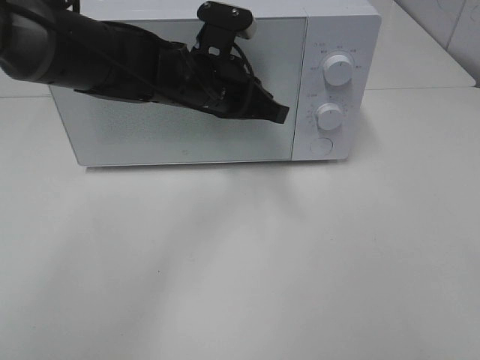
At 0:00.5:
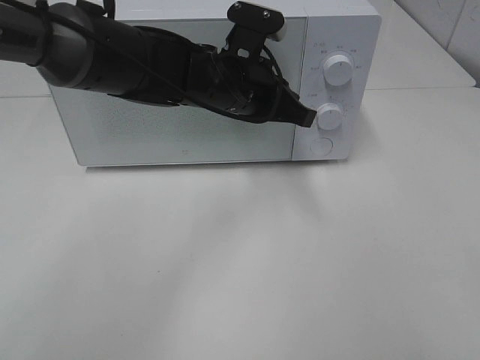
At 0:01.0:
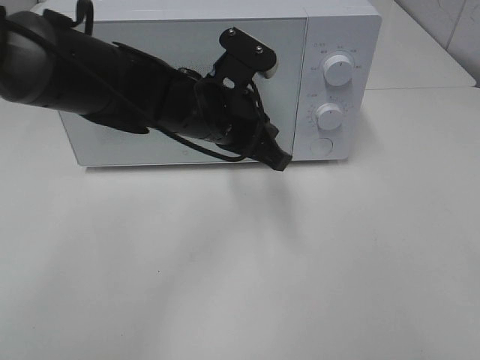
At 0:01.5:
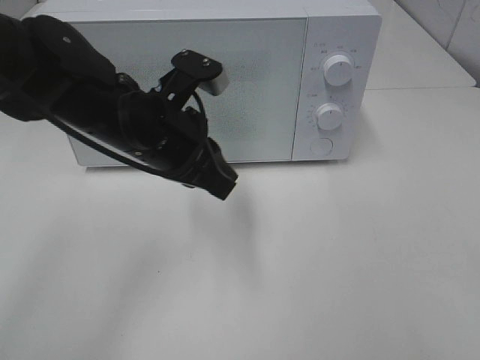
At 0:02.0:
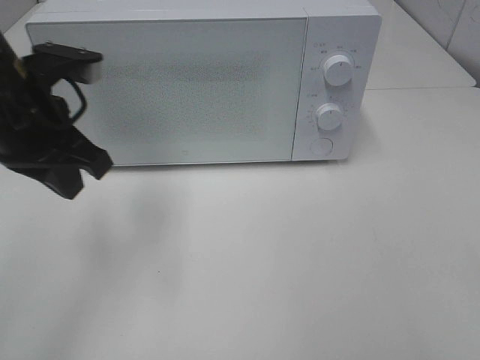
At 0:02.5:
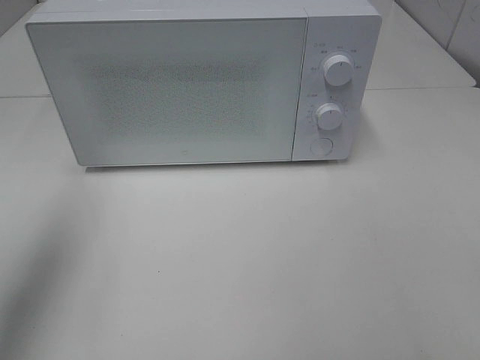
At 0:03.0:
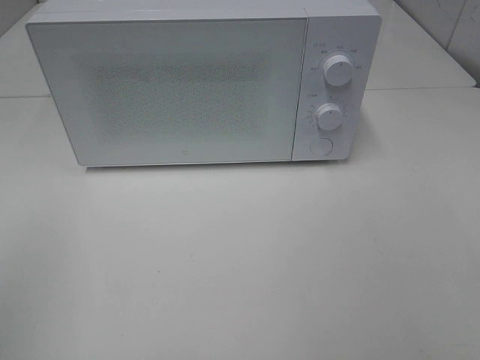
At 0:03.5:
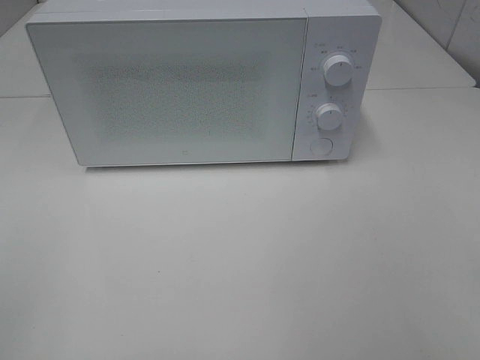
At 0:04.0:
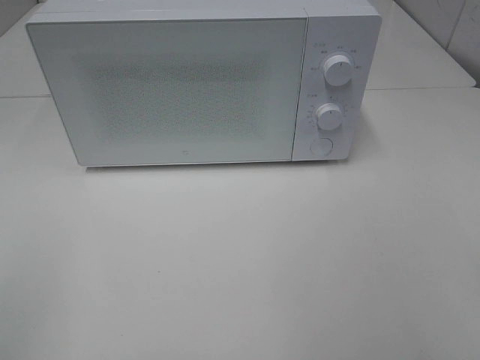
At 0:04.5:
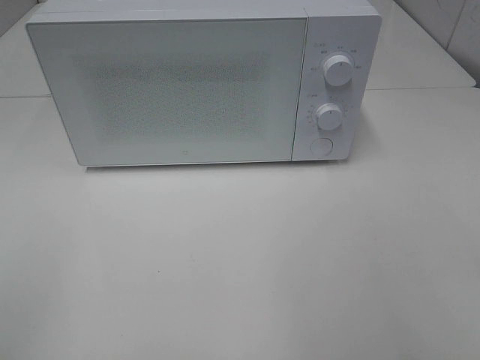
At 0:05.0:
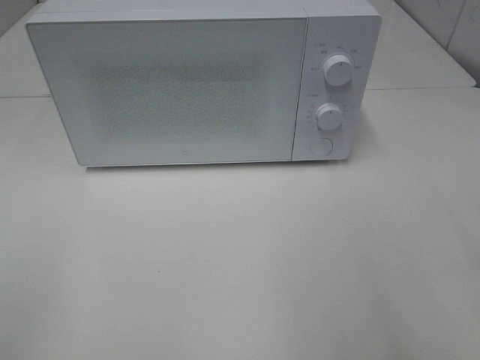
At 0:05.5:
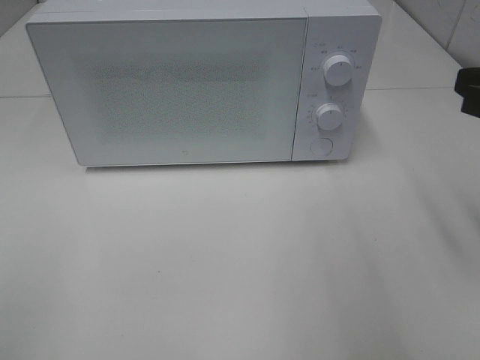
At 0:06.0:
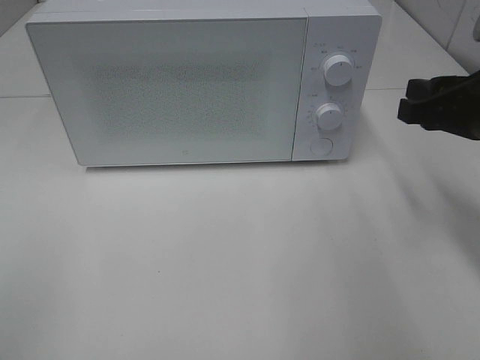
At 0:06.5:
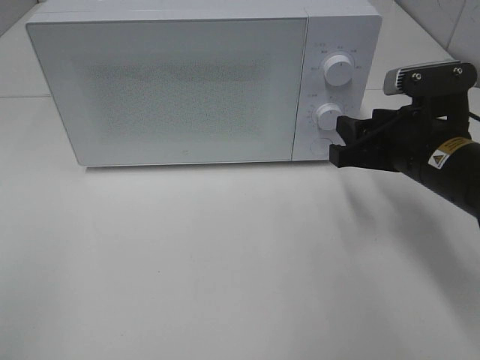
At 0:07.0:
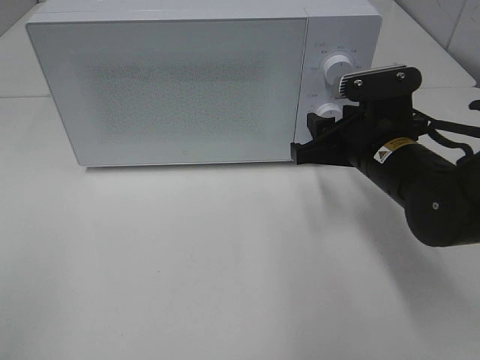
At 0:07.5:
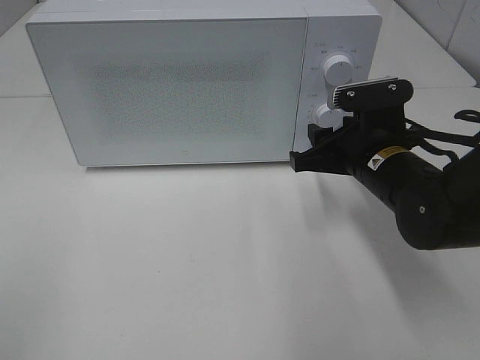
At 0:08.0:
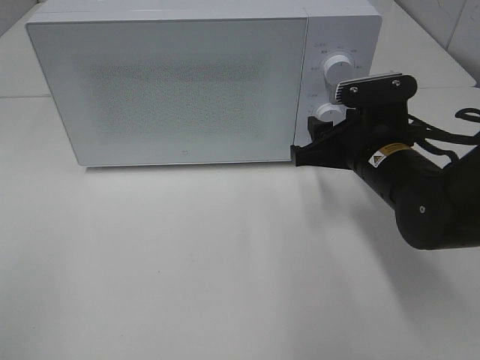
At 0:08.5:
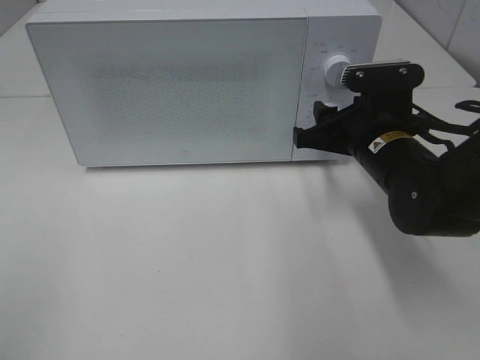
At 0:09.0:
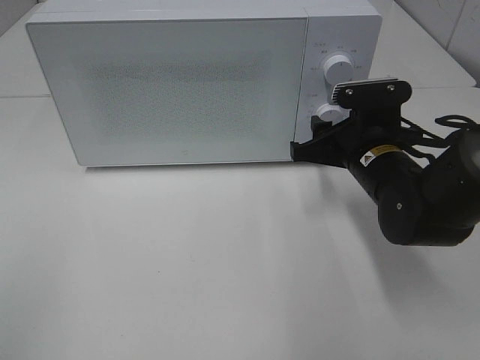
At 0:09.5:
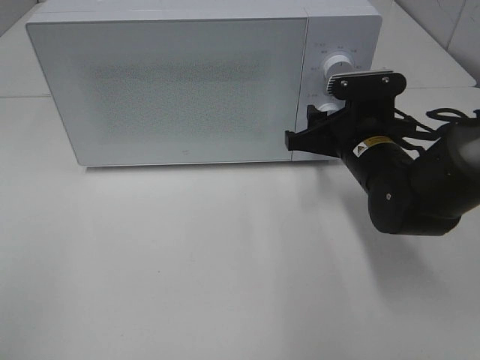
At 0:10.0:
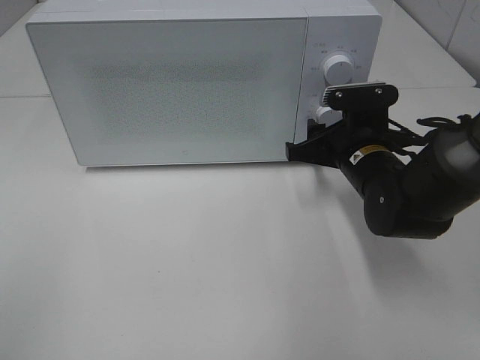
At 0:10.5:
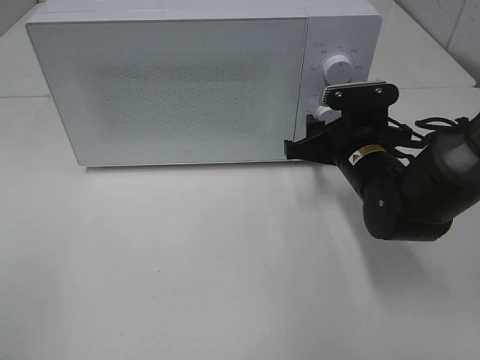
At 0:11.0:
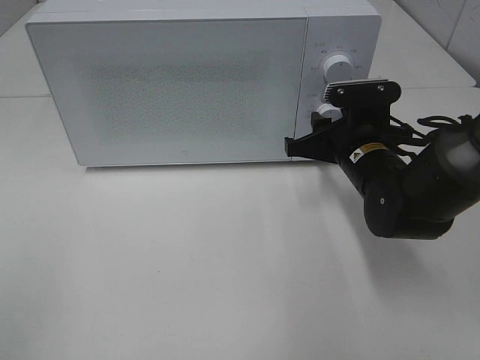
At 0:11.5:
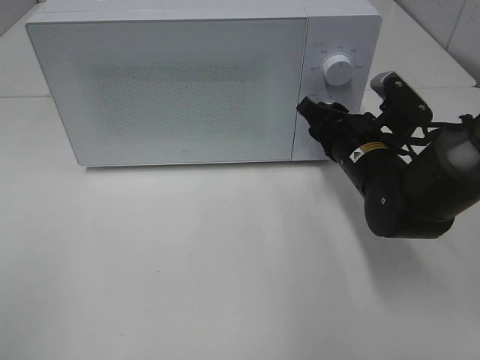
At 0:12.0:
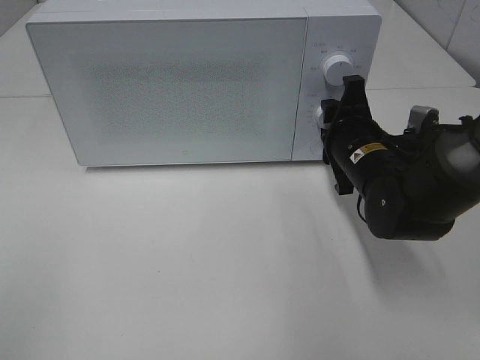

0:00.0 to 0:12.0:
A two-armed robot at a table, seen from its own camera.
Task of the whole recording: Heat the burger.
0:00.0 to 0:02.0: The left gripper is displaced to the left and backward by approximately 20 cm.
0:02.0 to 0:04.0: The left gripper goes about 30 cm backward and to the left.
0:04.0 to 0:06.0: The right gripper heads forward, covering about 25 cm.
0:06.0 to 0:08.0: The right gripper heads to the left and downward, covering approximately 10 cm.
0:08.0 to 0:10.0: The grippers stay close to where they were, moving slightly.

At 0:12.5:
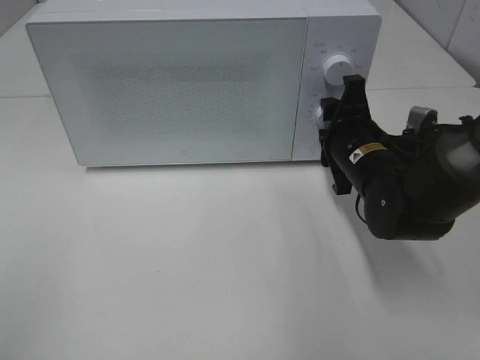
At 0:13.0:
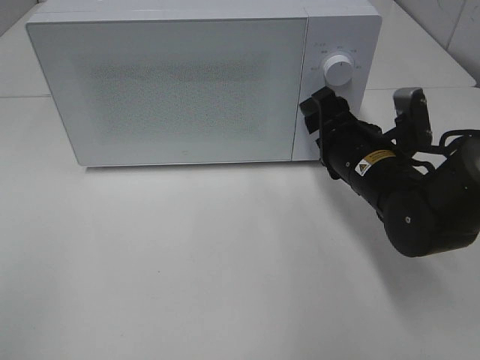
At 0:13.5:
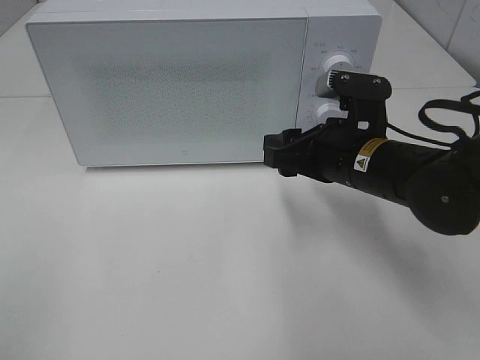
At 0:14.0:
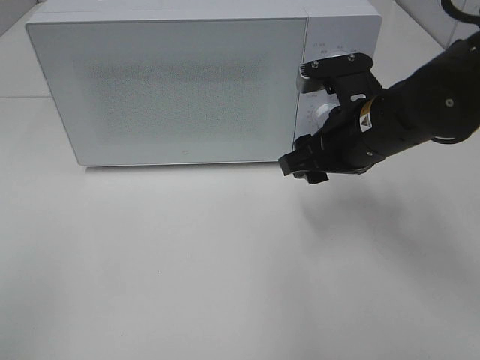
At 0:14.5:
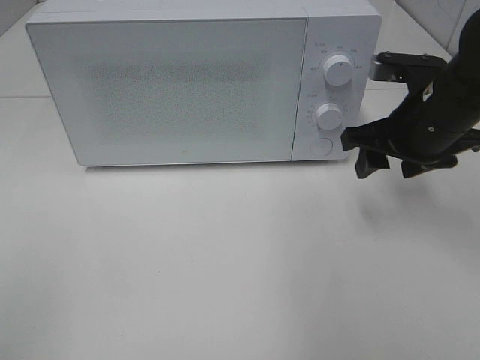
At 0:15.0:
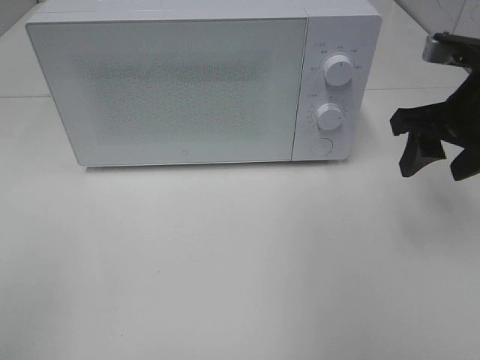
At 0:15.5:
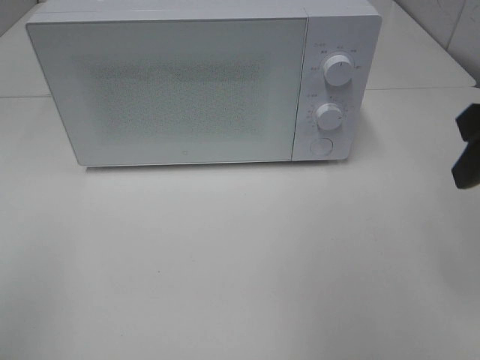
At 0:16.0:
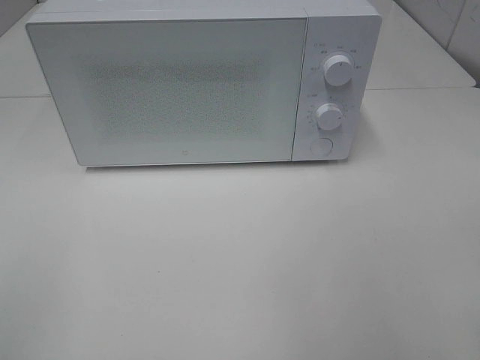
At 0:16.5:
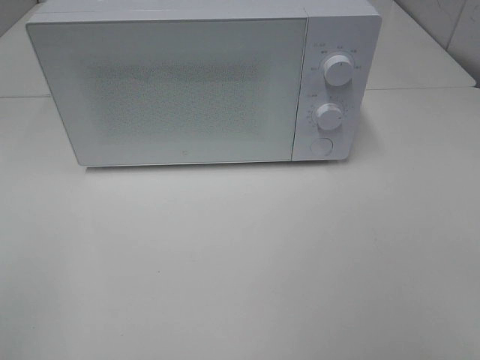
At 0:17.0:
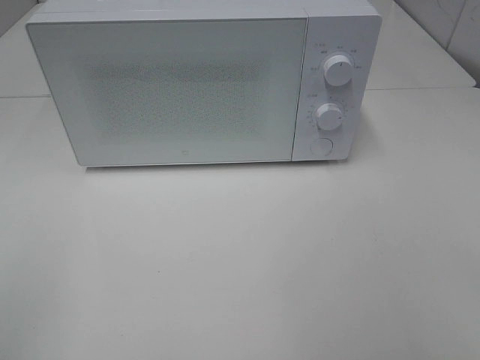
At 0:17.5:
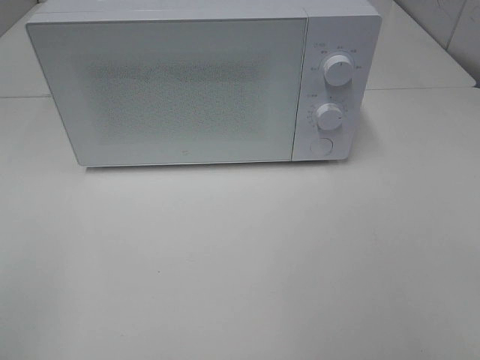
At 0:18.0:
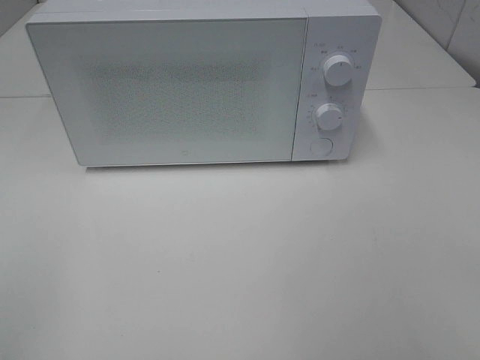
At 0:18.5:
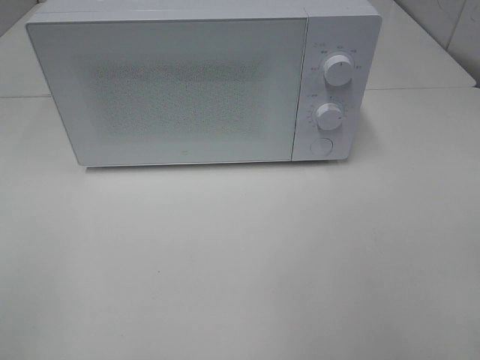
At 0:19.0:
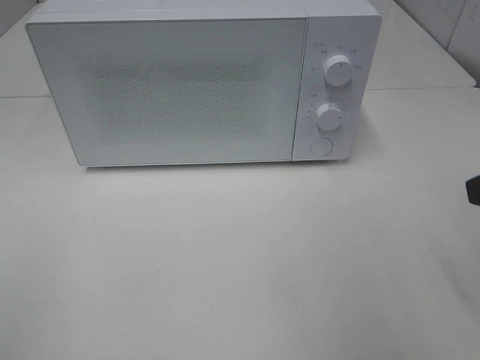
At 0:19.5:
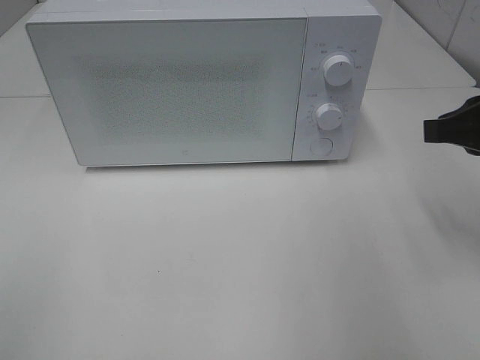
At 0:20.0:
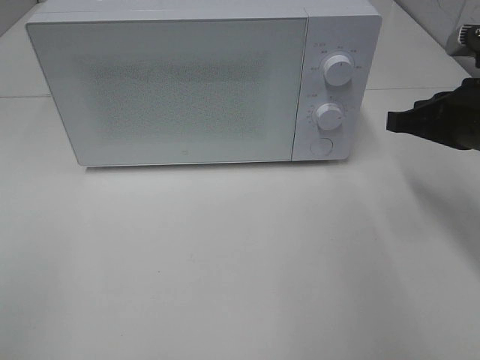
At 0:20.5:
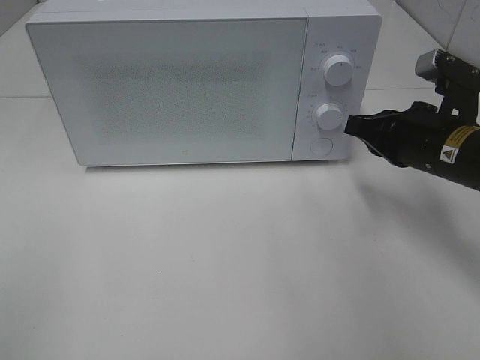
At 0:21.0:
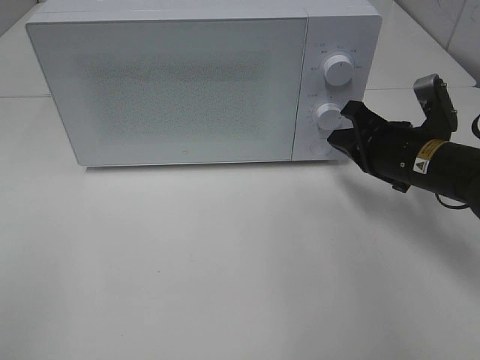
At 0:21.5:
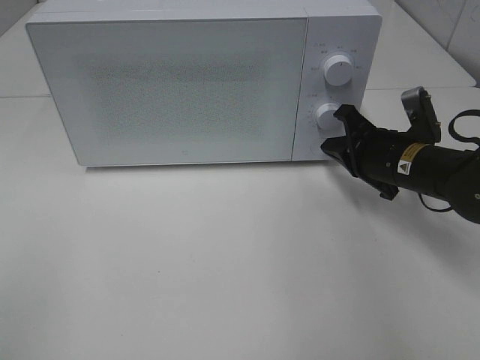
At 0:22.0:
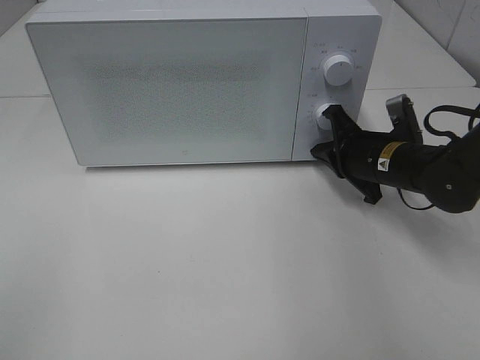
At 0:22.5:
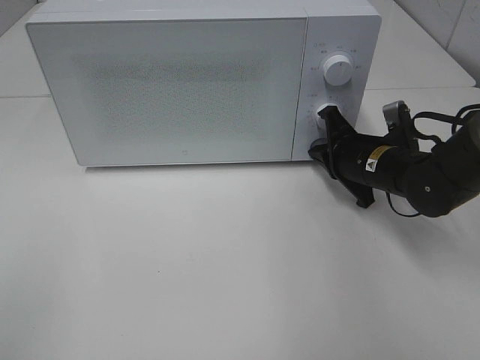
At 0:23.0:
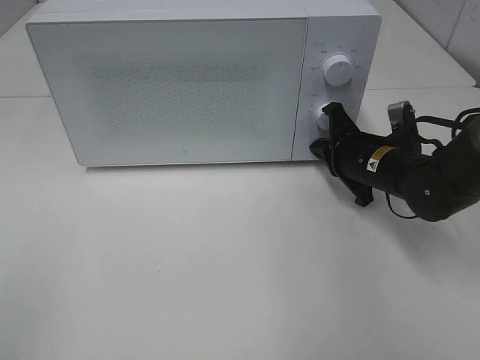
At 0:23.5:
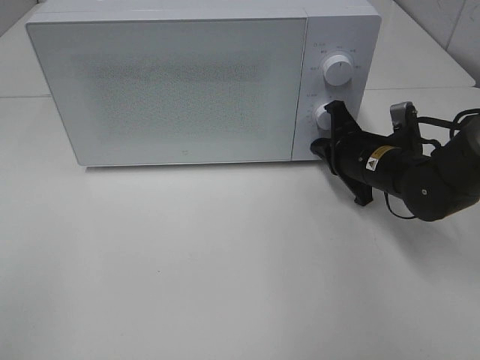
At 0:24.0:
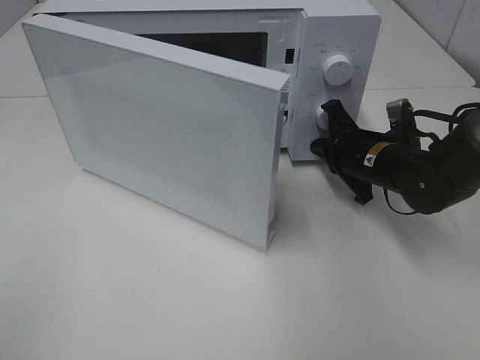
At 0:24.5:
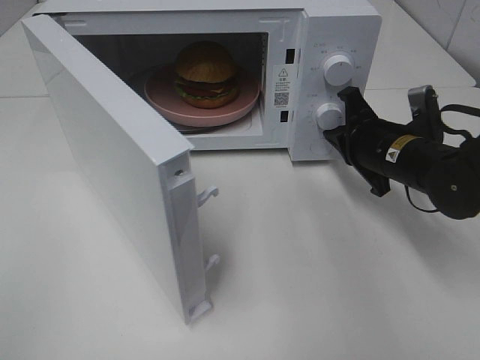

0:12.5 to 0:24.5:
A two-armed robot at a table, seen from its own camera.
Task of the whole recording: Heat the burger.
Step, 0:13.0 to 0:24.0: Right hand: press the switch.
0:12.5 to 0:14.5: The right gripper is displaced upward and to the right by some 10 cm.
0:14.5 to 0:16.5: The right gripper travels backward by some 30 cm.
0:18.5 to 0:20.5: The right gripper travels forward and downward by some 25 cm, and closes up.
0:20.5 to 0:22.5: The right gripper heads downward and forward, covering about 10 cm.

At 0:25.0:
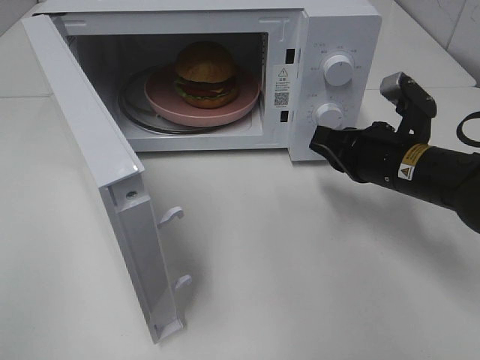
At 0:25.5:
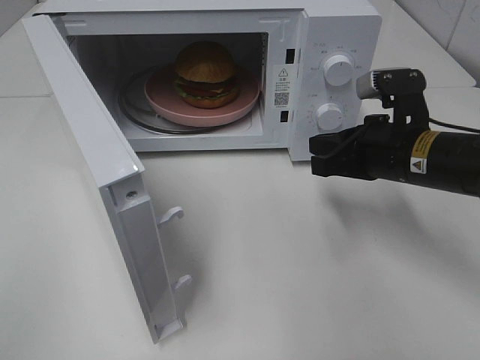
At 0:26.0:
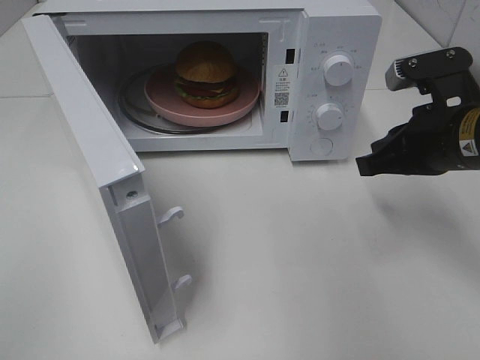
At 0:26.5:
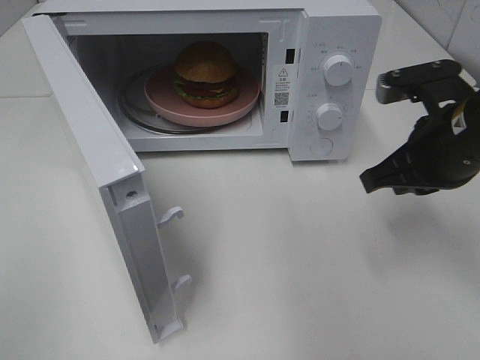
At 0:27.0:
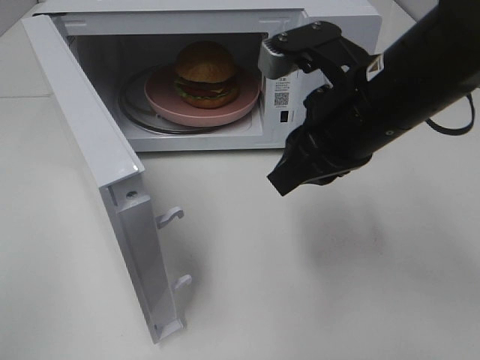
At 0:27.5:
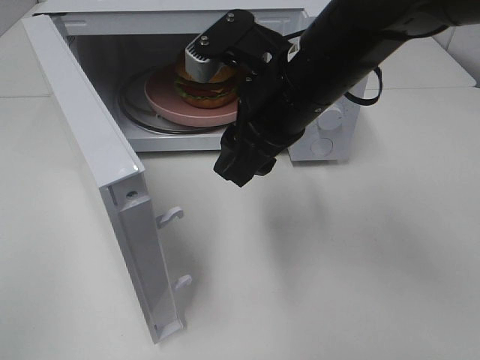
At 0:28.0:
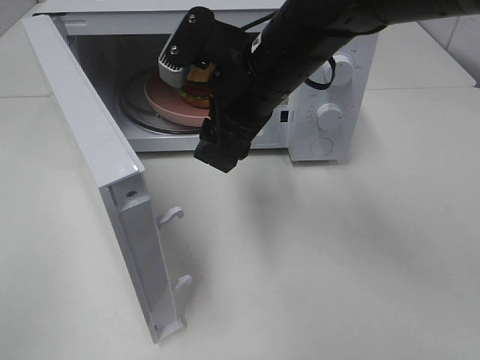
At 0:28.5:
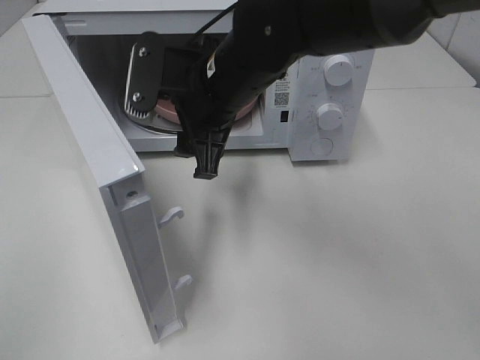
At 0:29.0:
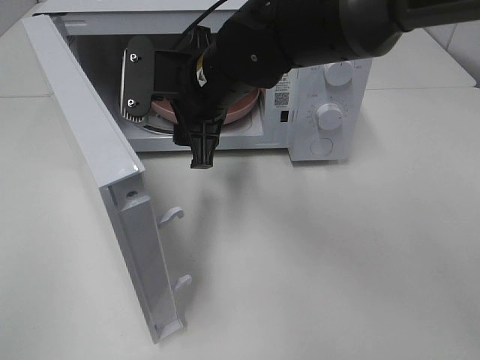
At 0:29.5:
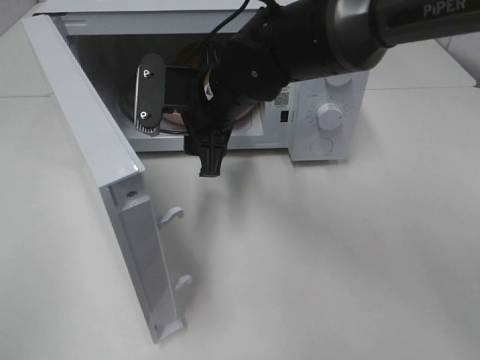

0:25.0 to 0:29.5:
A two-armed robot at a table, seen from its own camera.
Task of the whole recording: Heat the burger.
0:25.0 to 0:27.0: The right gripper shifts approximately 15 cm upward, to the left and backward.
0:27.0 to 0:29.5: The right gripper moves to the left, forward and downward, about 15 cm, and opens.
